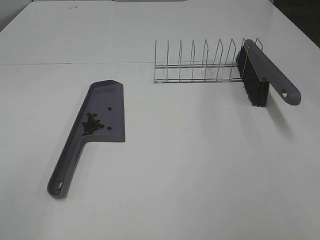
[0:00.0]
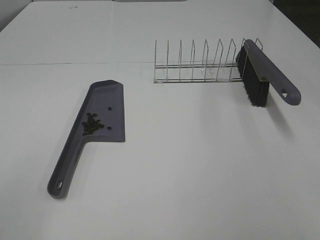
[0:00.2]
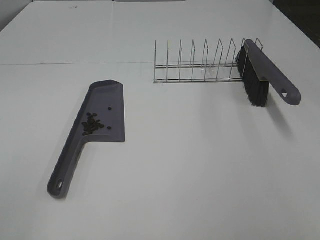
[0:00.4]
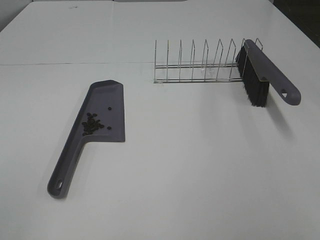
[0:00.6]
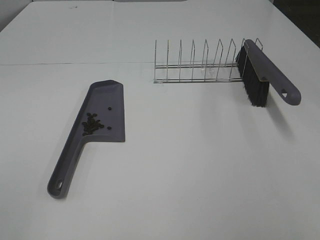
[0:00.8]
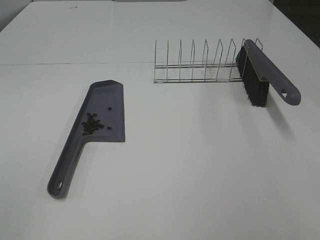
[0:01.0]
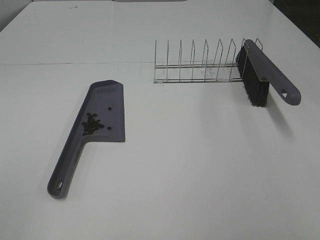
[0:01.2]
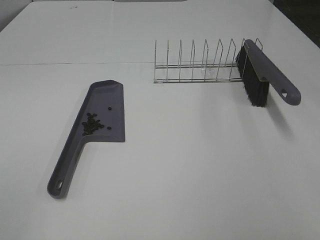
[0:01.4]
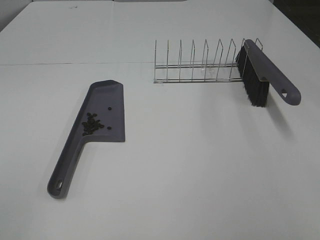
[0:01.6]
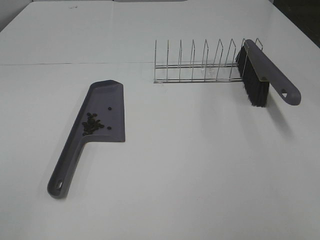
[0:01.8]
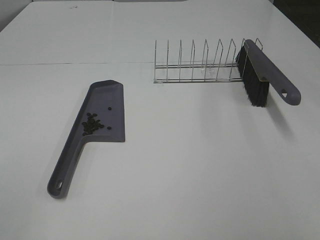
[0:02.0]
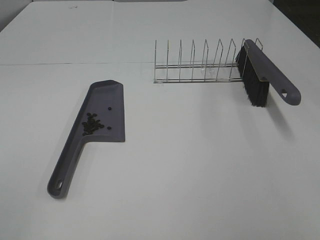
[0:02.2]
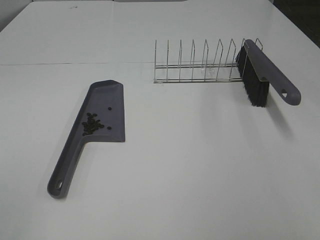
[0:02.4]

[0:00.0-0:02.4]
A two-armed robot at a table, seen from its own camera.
Task of the whole recording: Sweep Coffee Bean.
0:01.2 to 0:02.4: The two grippers keep their place.

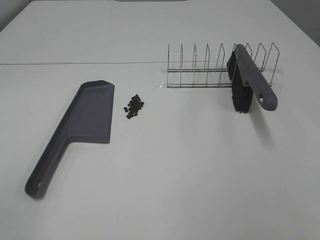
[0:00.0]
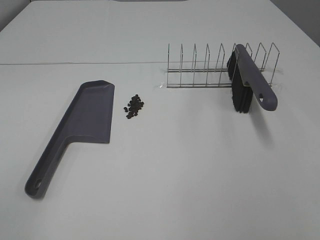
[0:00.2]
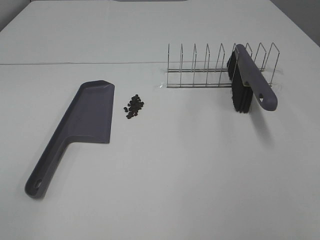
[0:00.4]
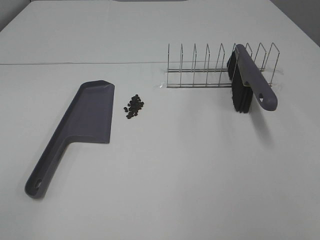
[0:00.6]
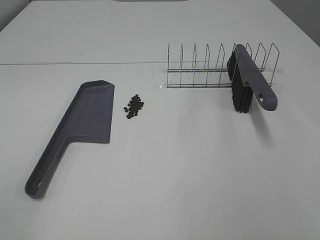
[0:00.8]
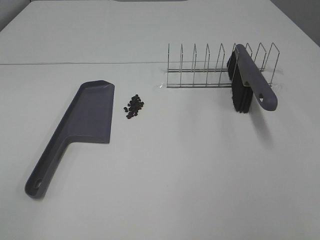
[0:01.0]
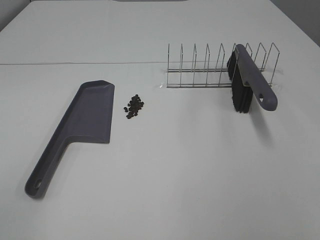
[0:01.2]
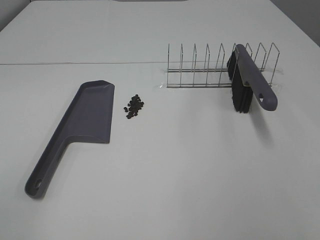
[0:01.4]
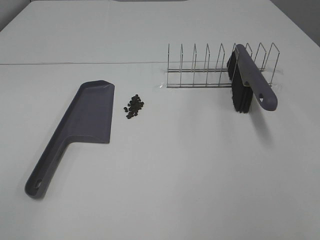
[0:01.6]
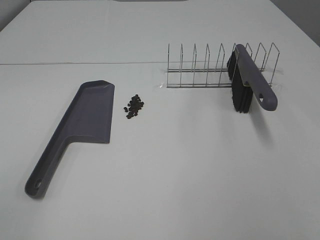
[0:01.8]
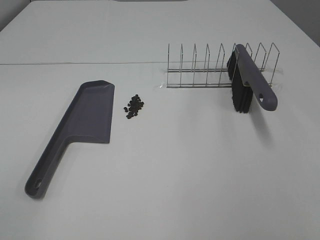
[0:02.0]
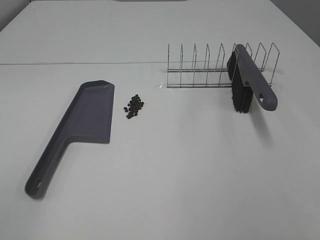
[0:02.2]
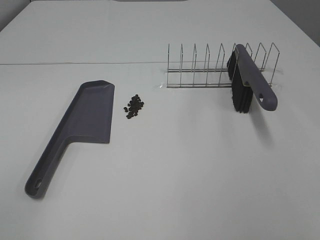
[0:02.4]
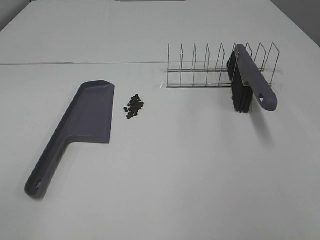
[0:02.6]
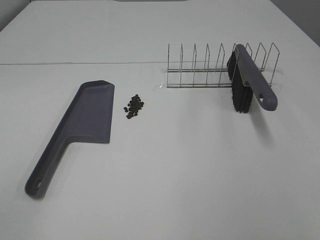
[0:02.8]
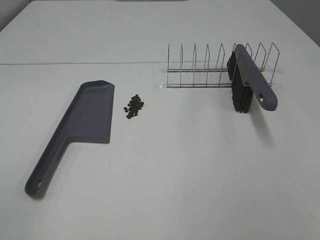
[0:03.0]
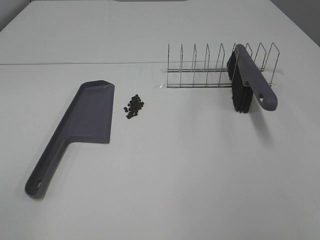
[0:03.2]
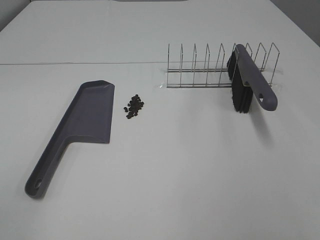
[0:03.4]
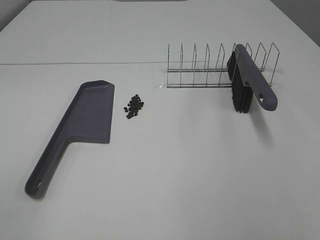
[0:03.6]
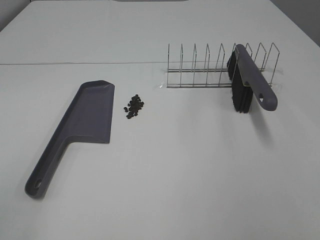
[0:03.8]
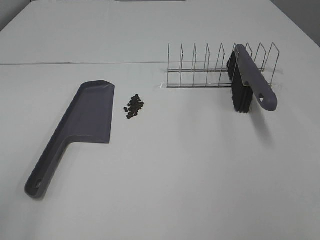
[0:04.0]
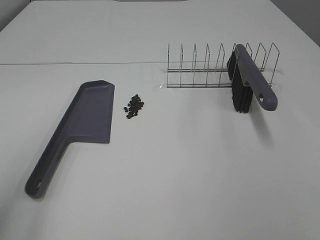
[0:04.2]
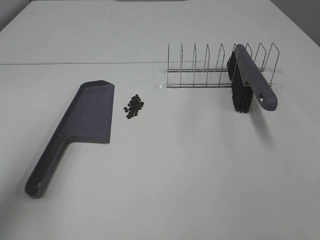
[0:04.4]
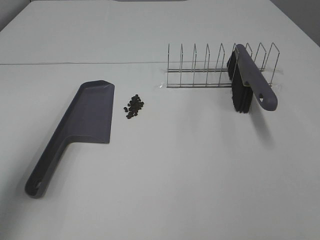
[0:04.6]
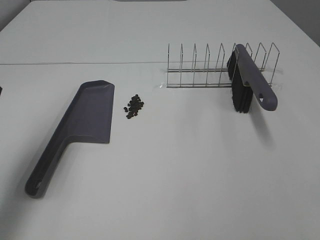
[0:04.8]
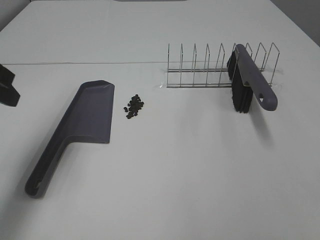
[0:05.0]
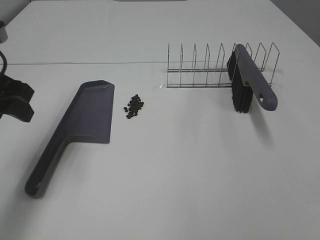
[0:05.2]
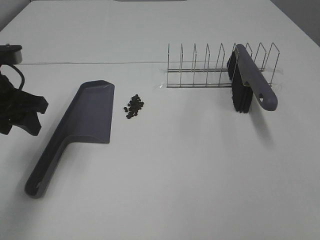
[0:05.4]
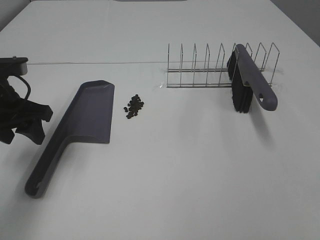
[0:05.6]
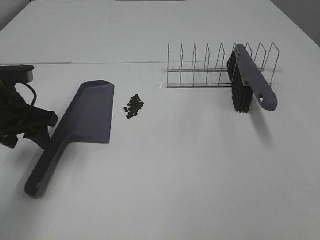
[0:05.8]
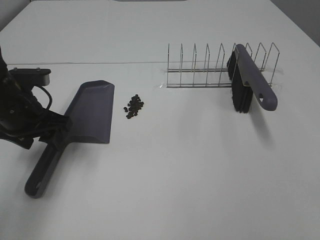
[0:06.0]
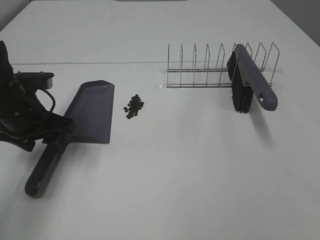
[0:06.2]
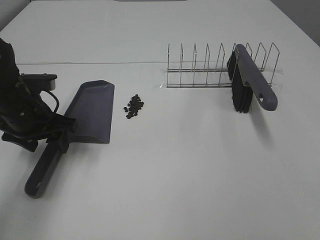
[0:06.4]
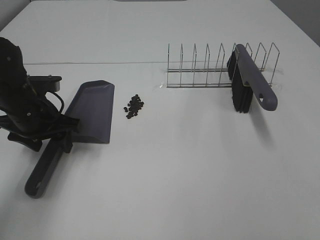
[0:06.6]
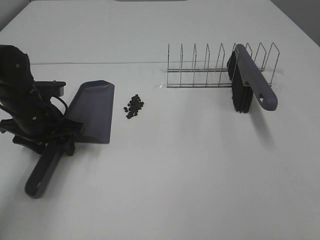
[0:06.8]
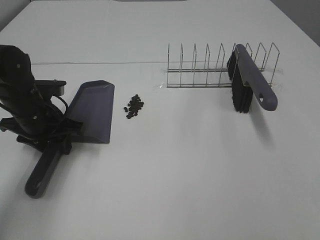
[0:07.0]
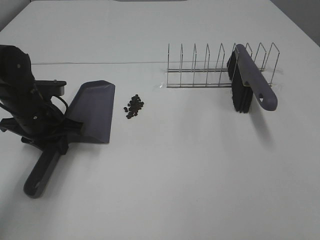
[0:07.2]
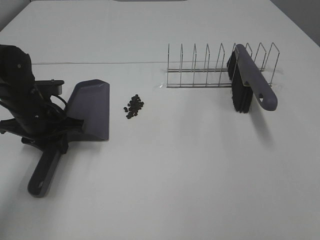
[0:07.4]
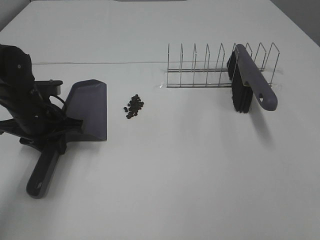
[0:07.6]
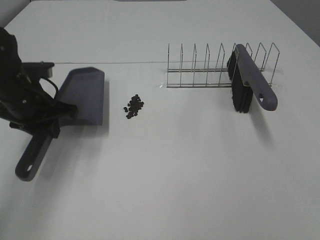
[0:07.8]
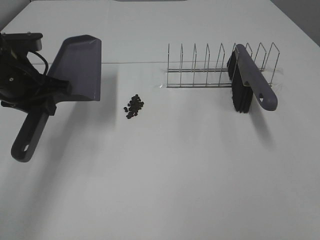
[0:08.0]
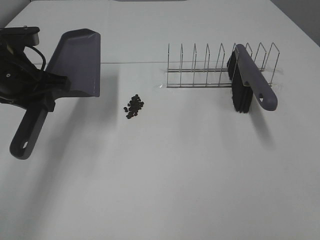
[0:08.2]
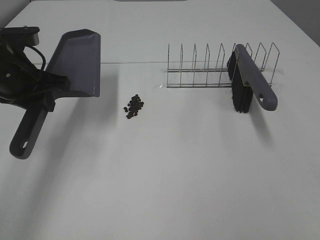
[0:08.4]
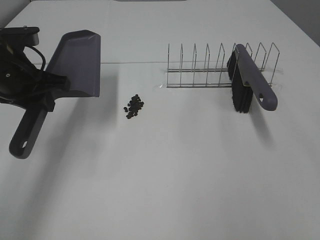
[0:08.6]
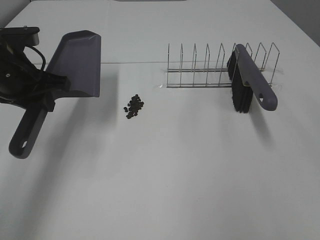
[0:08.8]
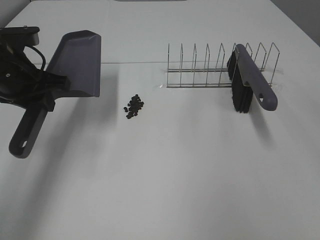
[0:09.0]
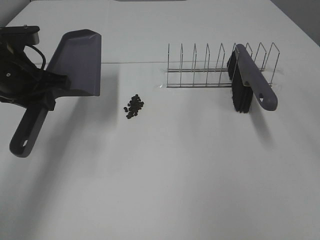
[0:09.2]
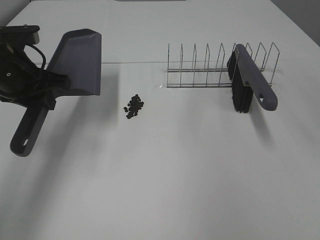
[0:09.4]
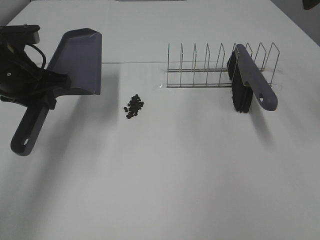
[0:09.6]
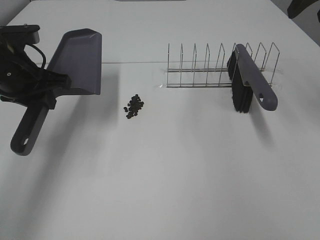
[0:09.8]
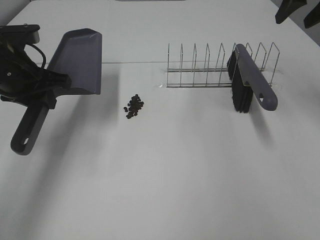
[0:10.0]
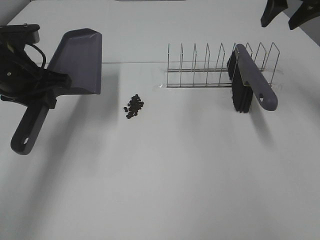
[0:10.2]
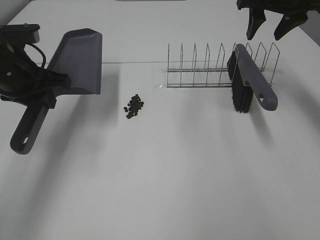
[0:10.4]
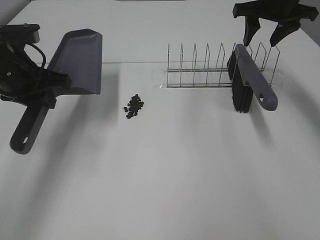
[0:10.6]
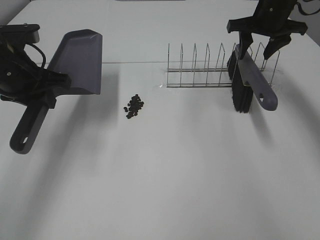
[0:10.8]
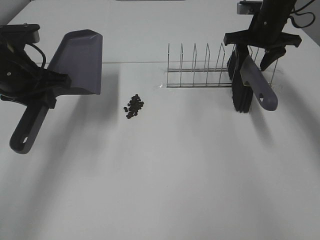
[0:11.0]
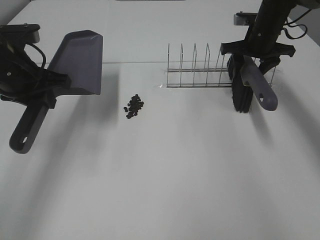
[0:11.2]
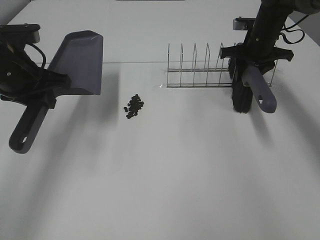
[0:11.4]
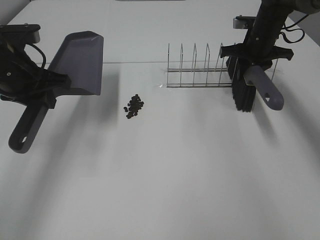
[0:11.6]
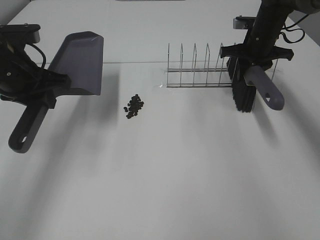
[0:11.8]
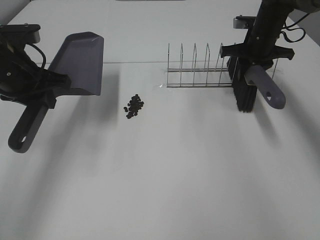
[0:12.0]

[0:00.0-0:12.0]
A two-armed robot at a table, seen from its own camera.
Task of the whole recording: Sweep Coffee Bean.
Step, 0:00.0 to 0:07.2: Left hand: grab the dustpan.
Step, 0:08.0 to 0:11.8: Right hand:grab the broom.
0:00.0 to 0:03.0: Neither gripper changes place.
0:03.0 to 0:04.4: The left gripper is displaced forward by approximately 15 cm.
0:04.4 to 0:06.0: The left gripper moves downward and forward, some 20 cm.
0:06.0 to 0:07.6: The left gripper shifts by approximately 5 cm, and closes its fingers.
0:07.6 to 0:09.0: The left gripper goes roughly 10 cm upward. Meanwhile the right gripper moves forward and upward, approximately 20 cm.
0:09.0 to 0:10.4: The right gripper travels forward by approximately 30 cm.
0:10.4 to 0:12.0: The right gripper goes approximately 10 cm downward, and closes.

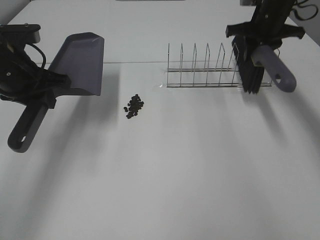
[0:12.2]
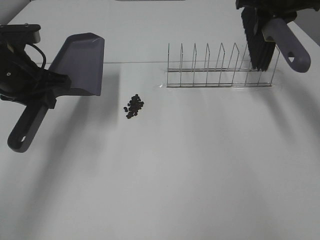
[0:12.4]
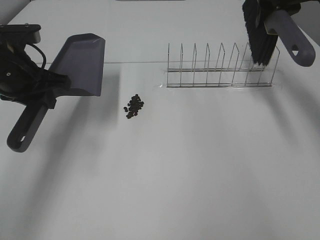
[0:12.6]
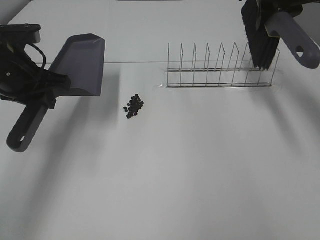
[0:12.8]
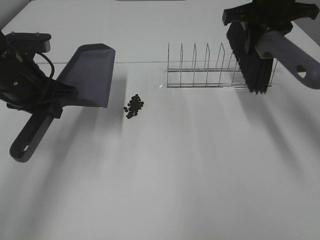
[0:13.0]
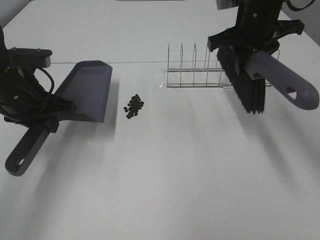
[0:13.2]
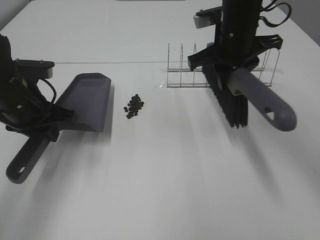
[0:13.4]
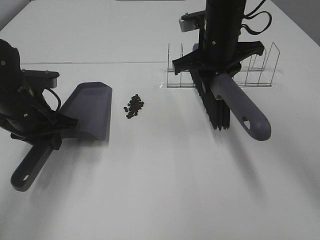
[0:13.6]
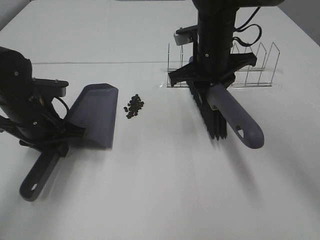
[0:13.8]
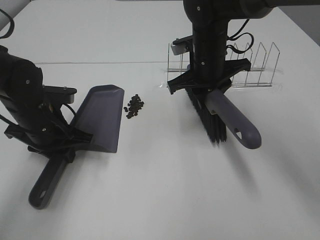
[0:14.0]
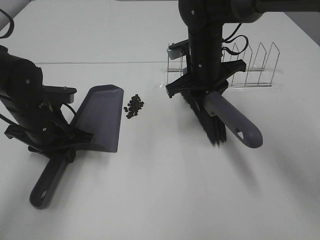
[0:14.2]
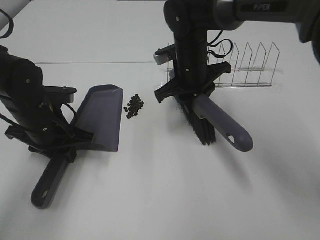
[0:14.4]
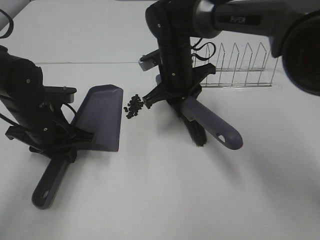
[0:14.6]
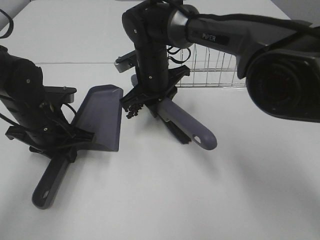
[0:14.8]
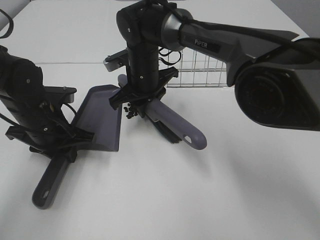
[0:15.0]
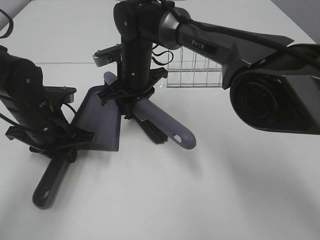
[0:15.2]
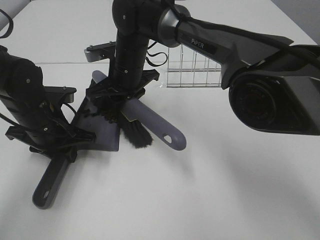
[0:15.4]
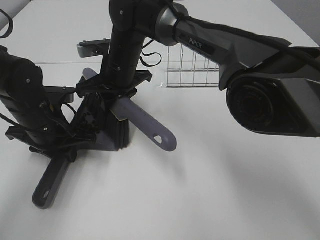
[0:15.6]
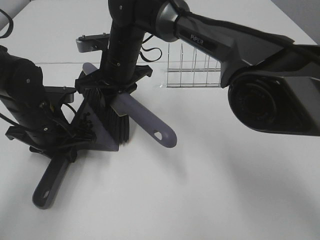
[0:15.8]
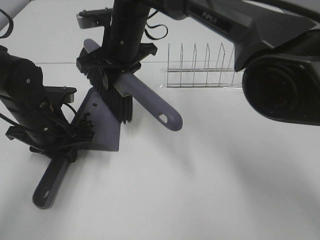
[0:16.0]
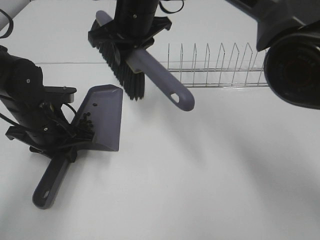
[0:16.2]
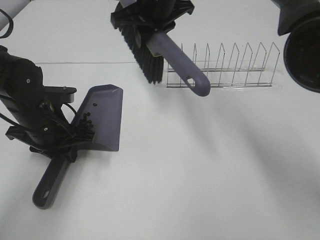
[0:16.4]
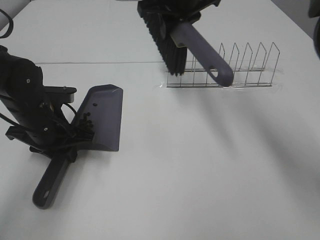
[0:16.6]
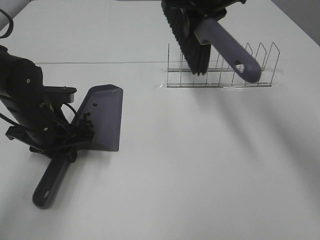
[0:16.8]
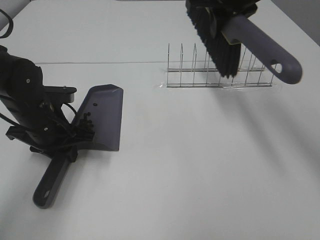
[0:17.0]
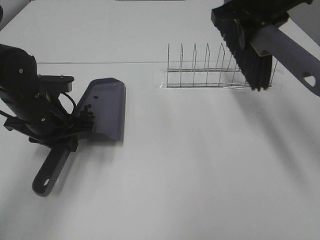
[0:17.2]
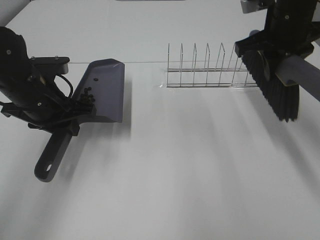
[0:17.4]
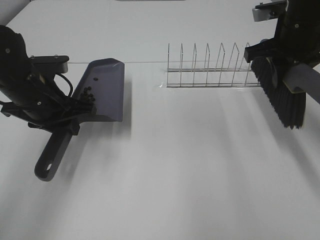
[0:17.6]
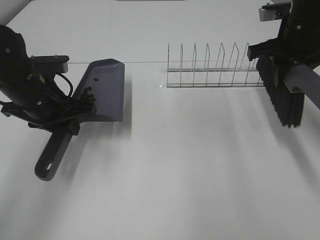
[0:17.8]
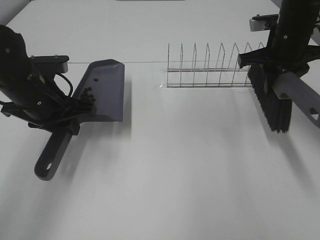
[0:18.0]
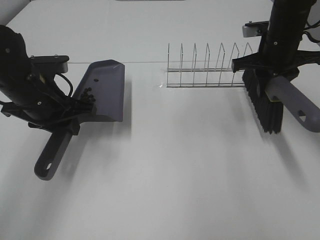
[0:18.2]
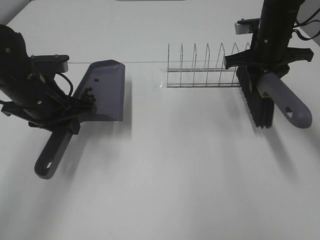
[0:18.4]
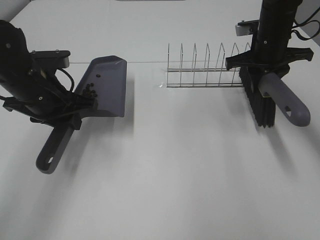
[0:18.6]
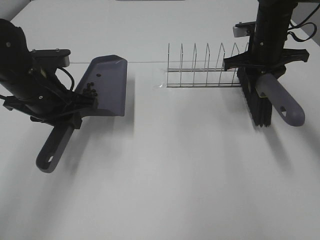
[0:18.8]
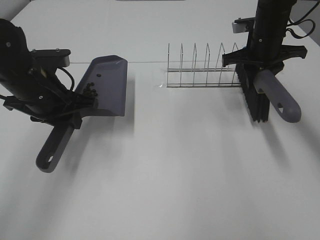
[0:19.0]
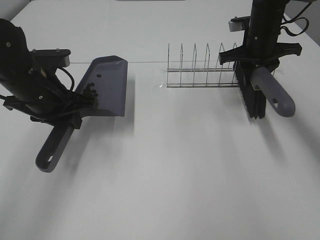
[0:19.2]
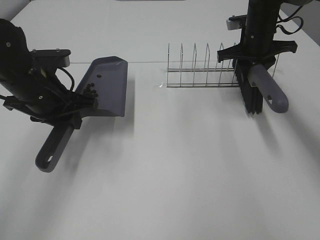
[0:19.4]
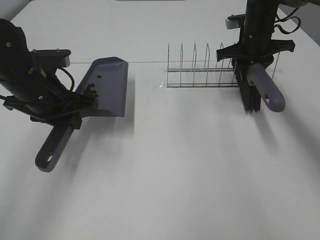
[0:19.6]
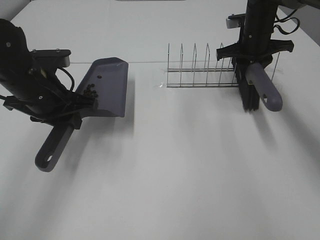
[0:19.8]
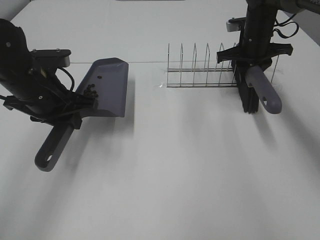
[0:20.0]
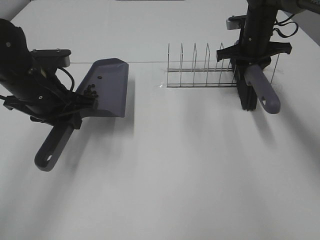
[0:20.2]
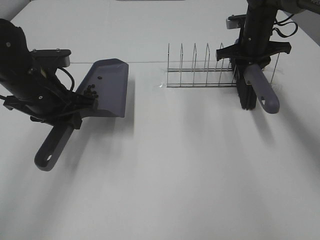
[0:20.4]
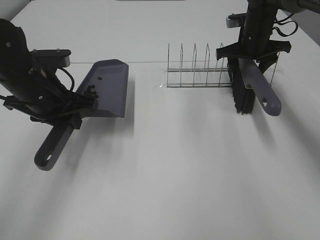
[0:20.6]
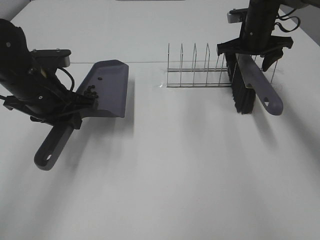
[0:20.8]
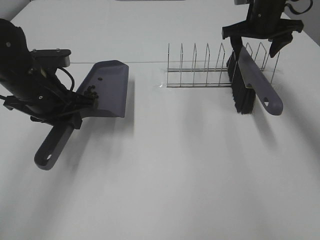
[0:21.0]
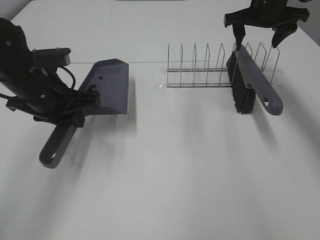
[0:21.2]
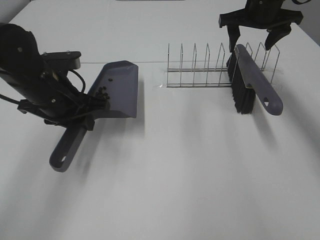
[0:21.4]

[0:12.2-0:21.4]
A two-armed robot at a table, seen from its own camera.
Task of the whole recording: Sweep Coffee Bean.
Step, 0:12.2 to 0:14.2: Left hand: move the dustpan to the left side of the coffee beans.
Step, 0:12.2 to 0:15.8: Right hand:sweep the coffee beans into the dustpan.
Step, 0:16.0 to 0:20.8: Right hand:place the broom on the rack.
0:12.2 to 0:13.8: The left gripper travels downward by about 10 cm. Meanwhile the right gripper heads to the left and backward, covering about 20 cm.
0:13.8 to 0:15.2: The right gripper shifts some 15 cm to the left.
0:15.2 to 0:16.8: The right gripper shifts about 20 cm upward and to the right.
0:16.8 to 0:18.4: The right gripper shifts approximately 15 cm to the right and downward. The left gripper shifts approximately 5 cm upward.
0:18.4 to 0:19.8: The right gripper moves forward, roughly 5 cm.
0:19.8 to 0:21.4: The right gripper is displaced upward by roughly 10 cm, and opens up.
